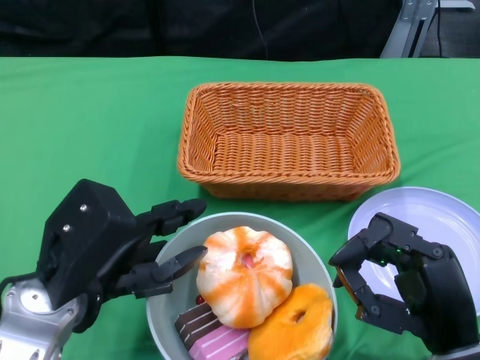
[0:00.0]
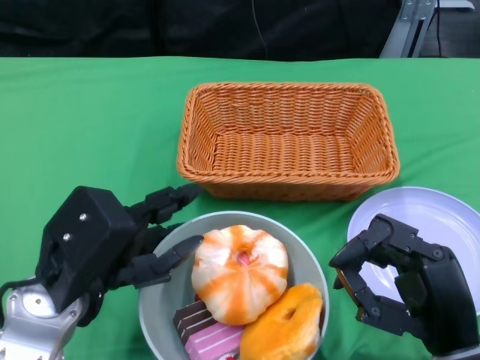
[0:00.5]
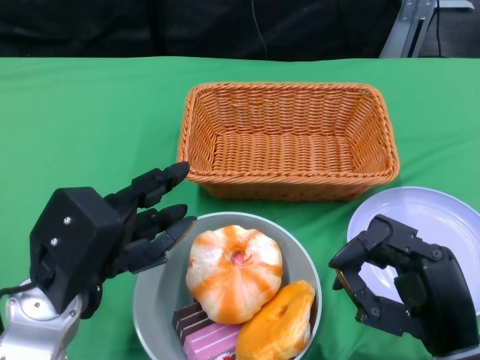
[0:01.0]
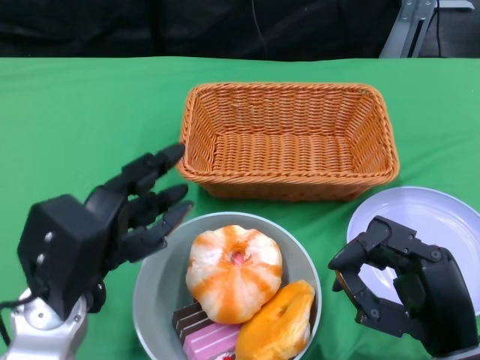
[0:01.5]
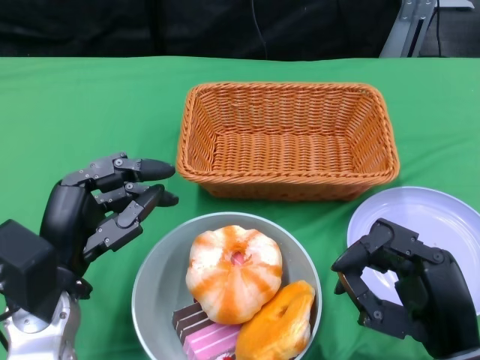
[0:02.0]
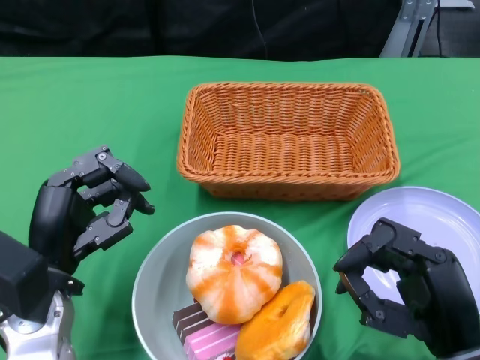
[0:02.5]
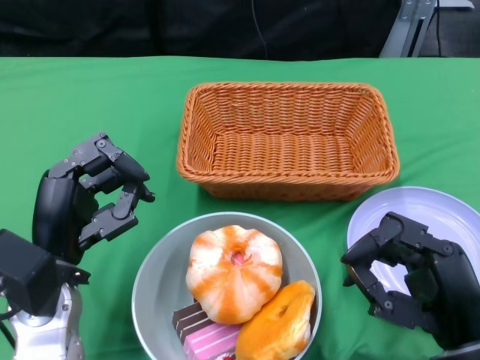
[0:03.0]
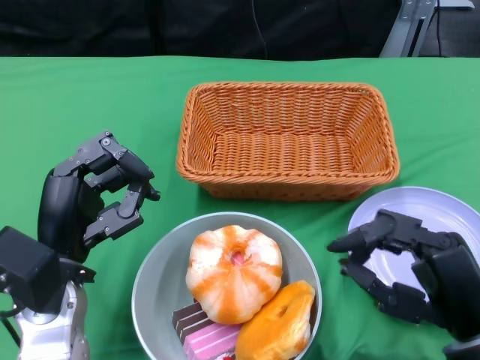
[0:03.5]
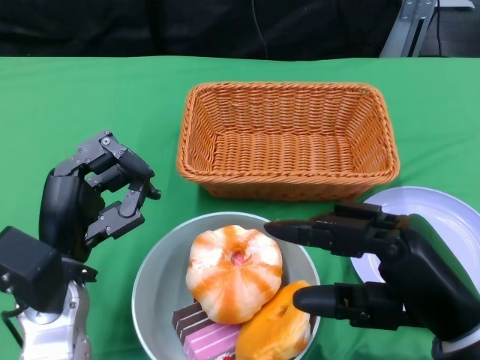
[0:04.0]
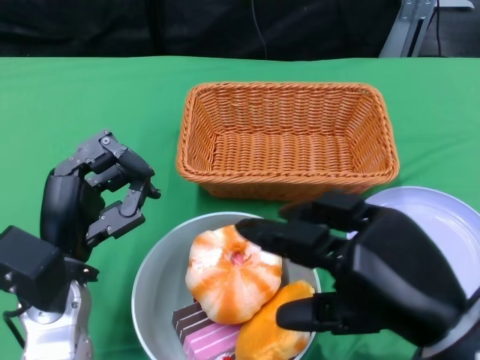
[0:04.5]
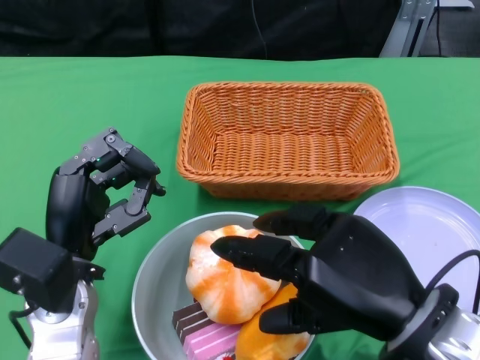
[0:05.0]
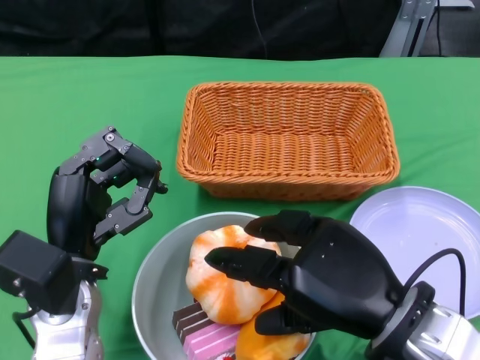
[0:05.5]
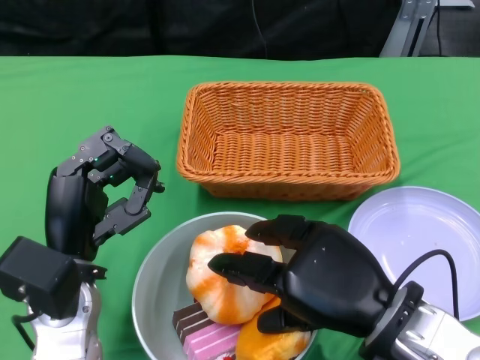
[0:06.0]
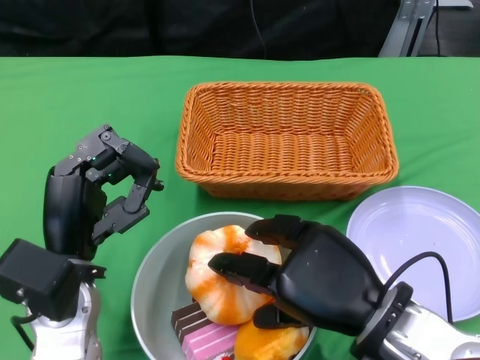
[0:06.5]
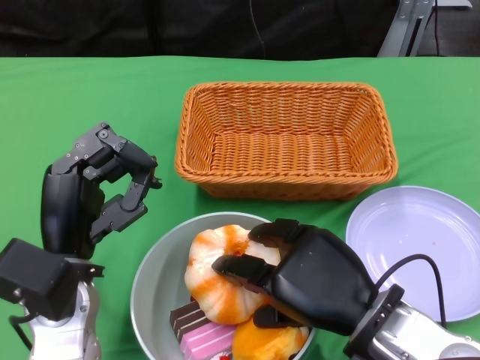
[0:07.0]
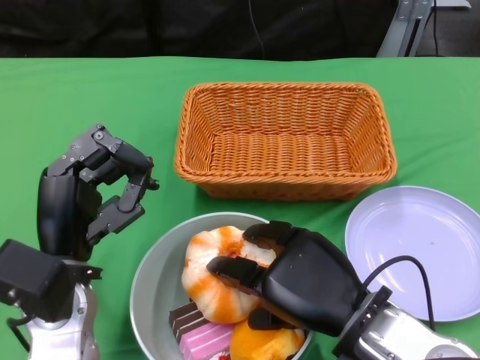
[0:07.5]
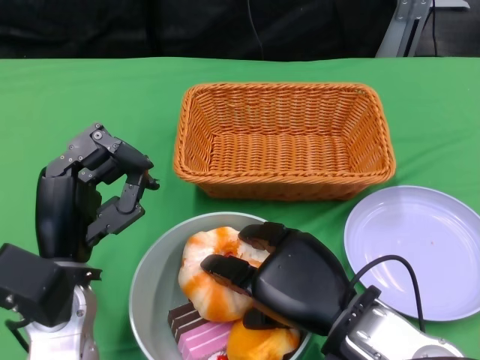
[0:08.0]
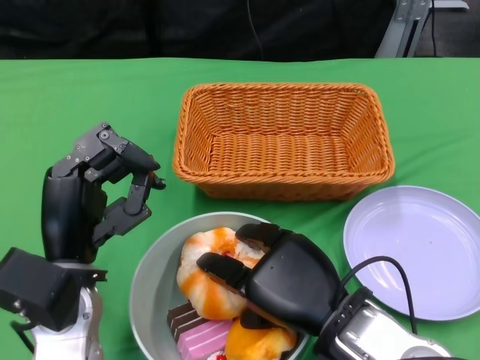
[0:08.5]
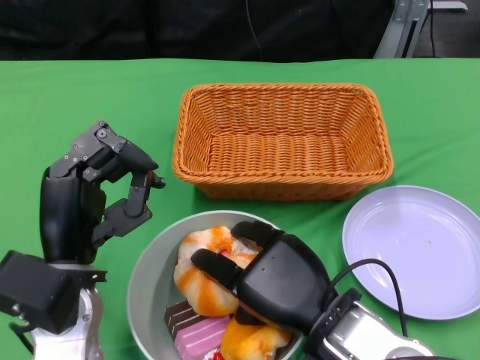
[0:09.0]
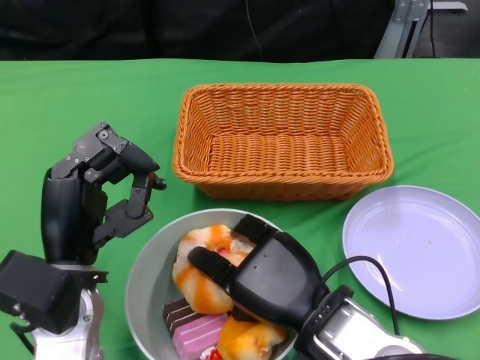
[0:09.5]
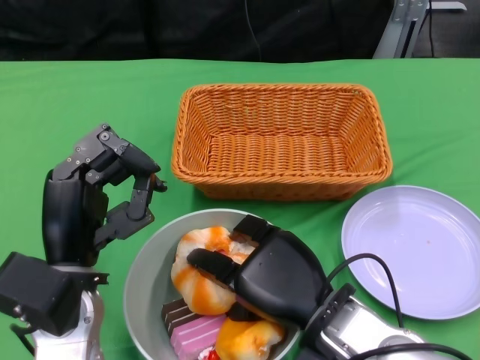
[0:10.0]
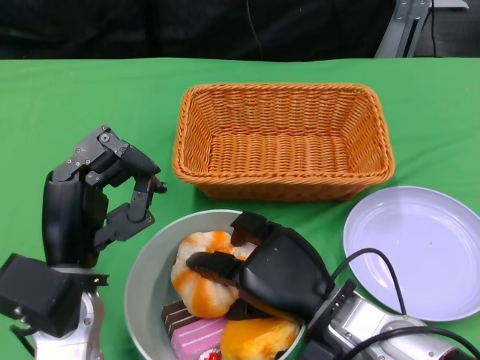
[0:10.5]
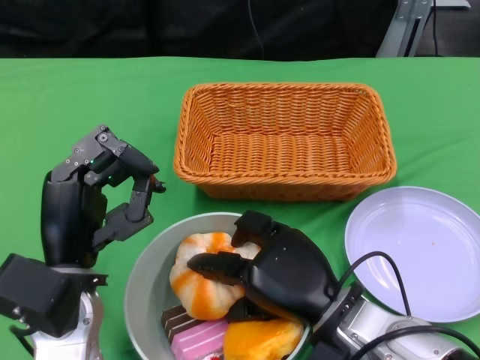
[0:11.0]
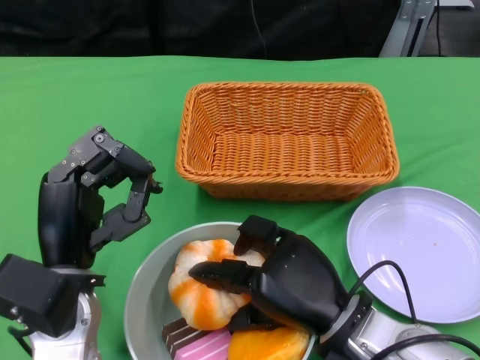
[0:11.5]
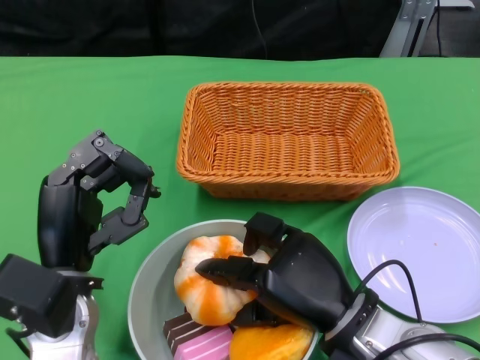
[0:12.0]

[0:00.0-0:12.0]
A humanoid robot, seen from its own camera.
Step, 0:00.0 to 0:03.5: Place the bowl in the center of the table with the left gripper.
0:02.0 to 0:04.0: The right hand travels upward by roughly 5 cm.
0:04.0 to 0:06.0: The right hand is displaced to the left by about 5 cm.

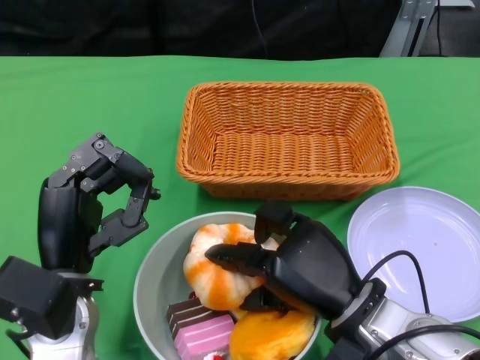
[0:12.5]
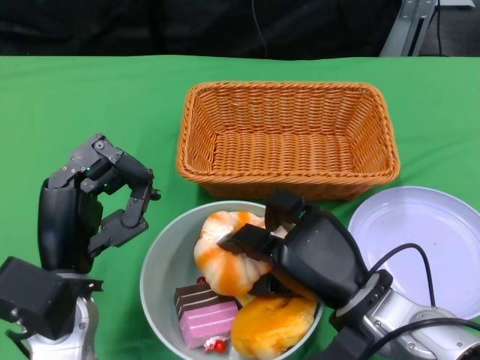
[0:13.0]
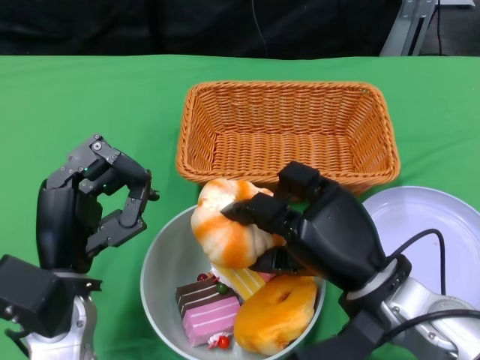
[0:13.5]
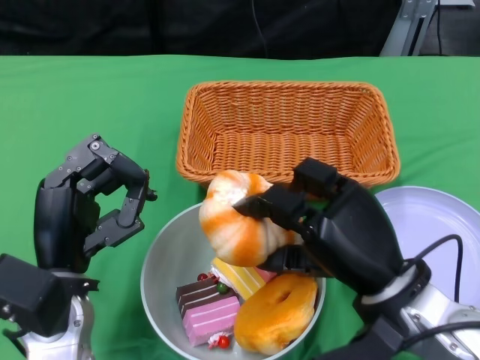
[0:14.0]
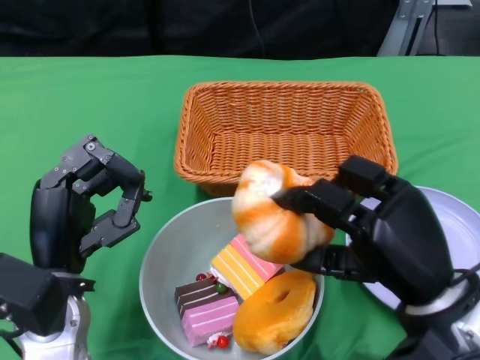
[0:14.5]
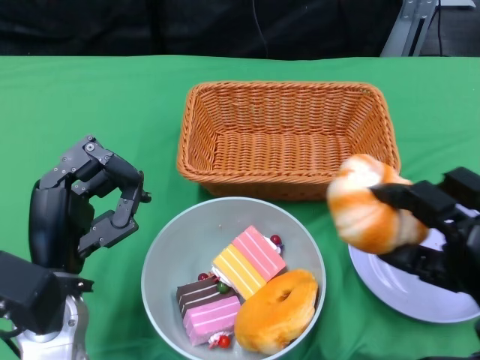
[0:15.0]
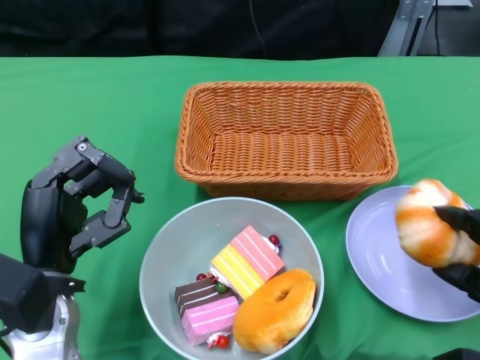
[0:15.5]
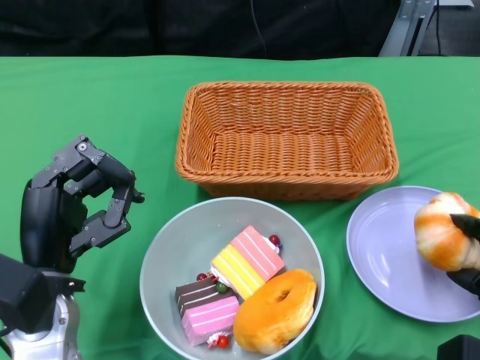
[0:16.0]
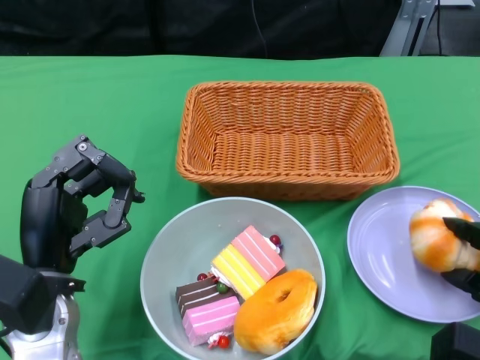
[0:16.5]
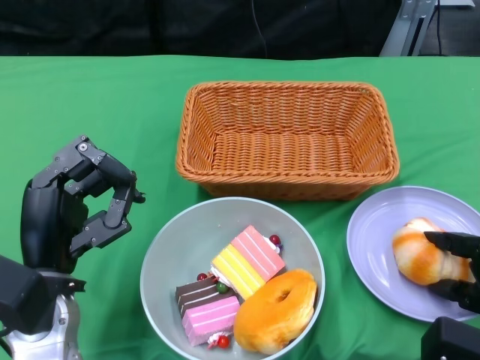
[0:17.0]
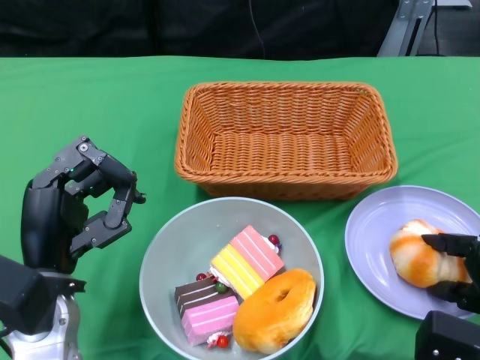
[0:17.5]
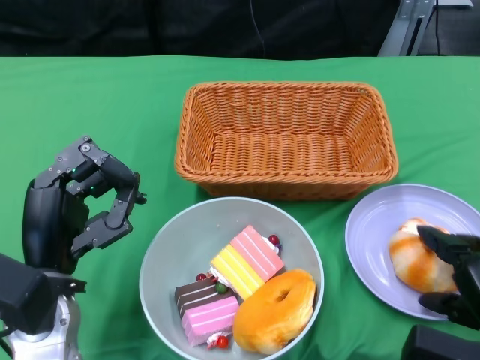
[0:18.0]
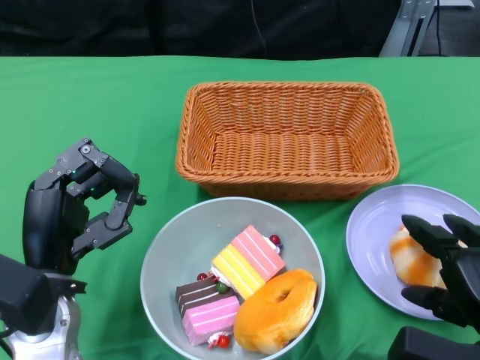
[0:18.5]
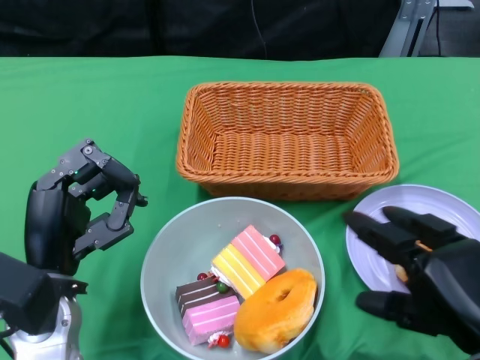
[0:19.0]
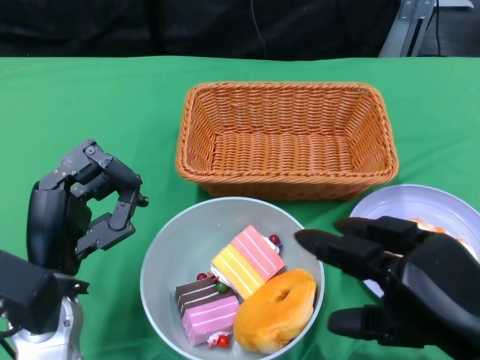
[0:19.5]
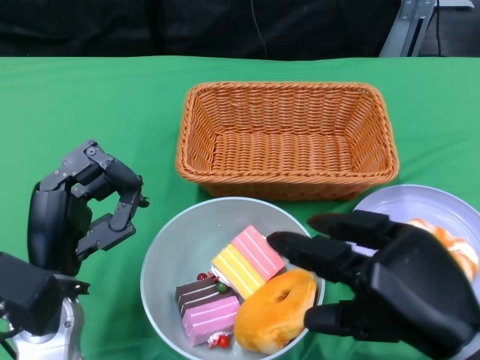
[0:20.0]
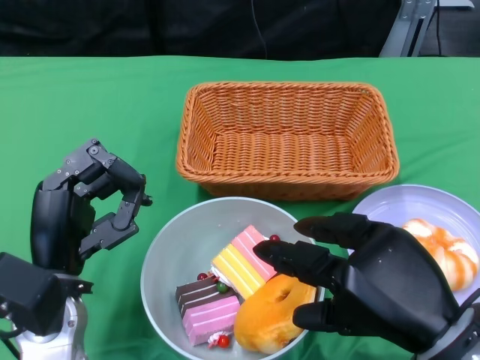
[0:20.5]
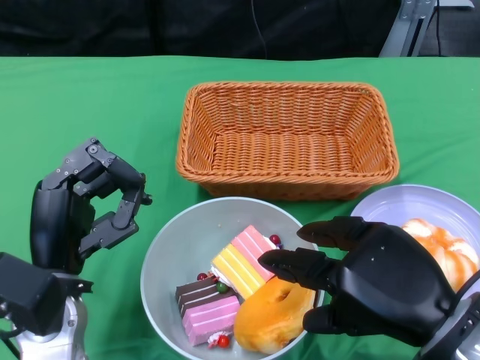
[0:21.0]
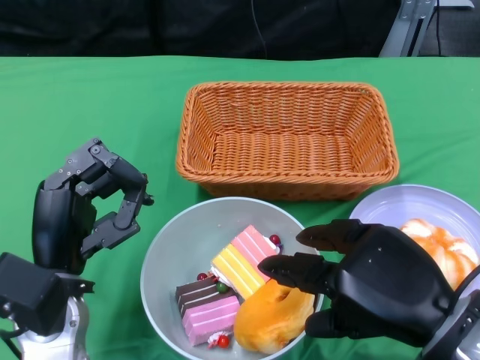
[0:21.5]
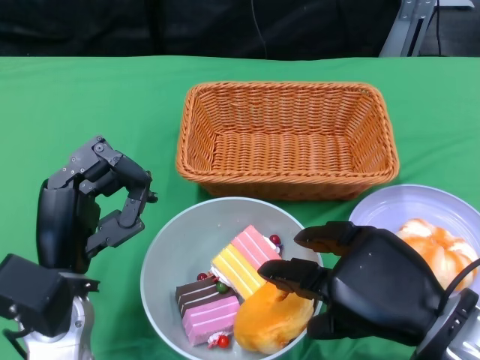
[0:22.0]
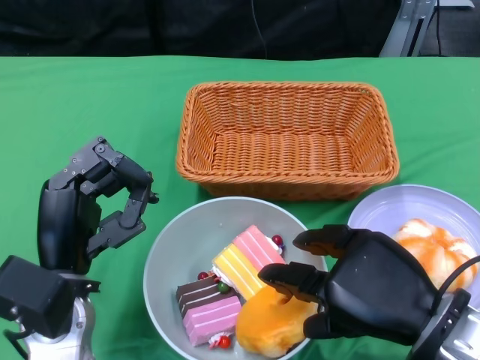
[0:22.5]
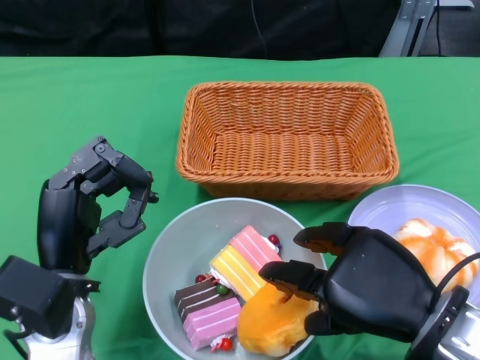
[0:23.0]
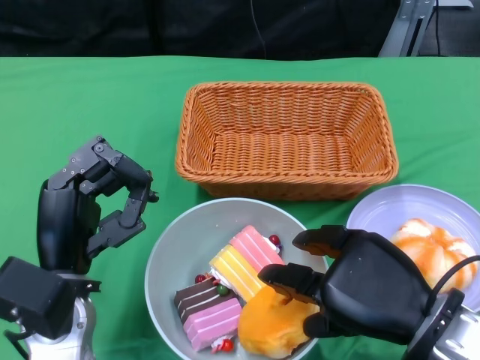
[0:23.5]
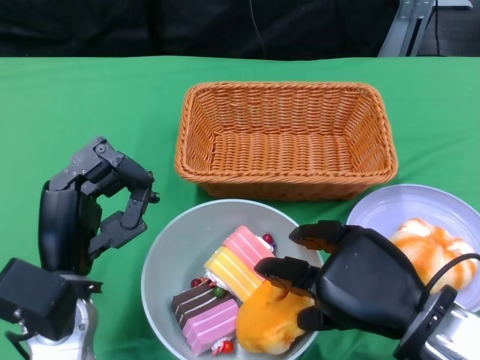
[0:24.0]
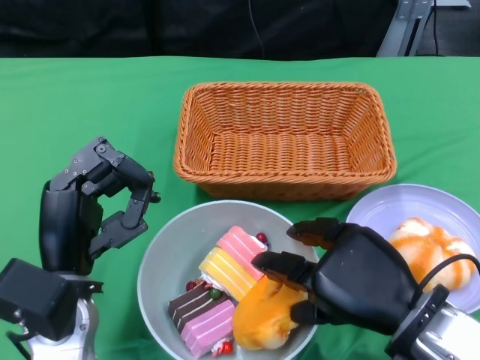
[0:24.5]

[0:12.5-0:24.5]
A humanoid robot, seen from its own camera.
0:12.5 to 0:14.5: The right hand shifts approximately 10 cm to the right and upward.
0:14.5 to 0:16.5: The right hand travels to the right and downward by approximately 15 cm.
0:16.5 to 0:18.5: The right hand moves roughly 5 cm.
0:18.5 to 0:20.5: The right hand shifts some 10 cm upward and to the left.
0:20.5 to 0:24.5: The hands stay close to where they were, moving slightly.

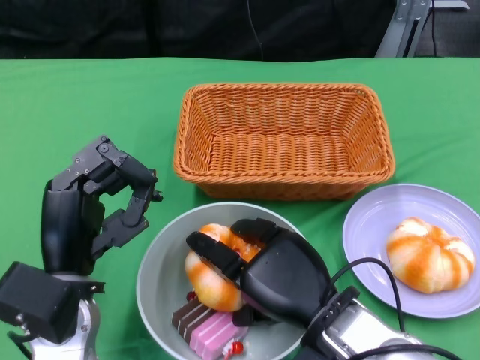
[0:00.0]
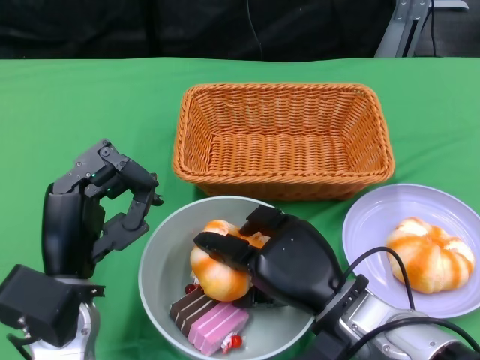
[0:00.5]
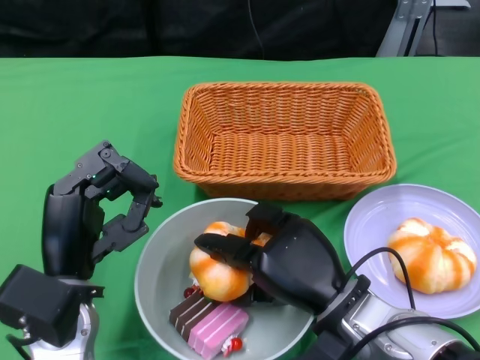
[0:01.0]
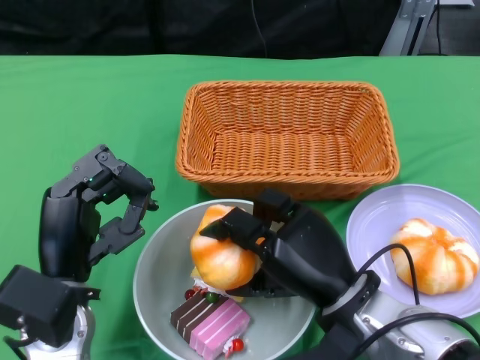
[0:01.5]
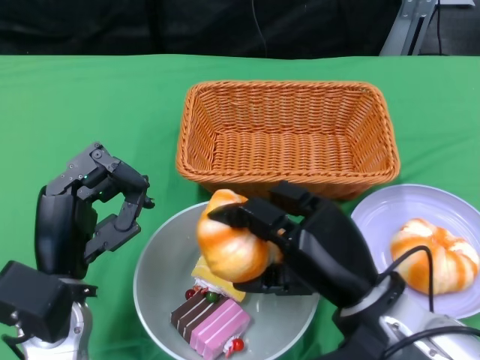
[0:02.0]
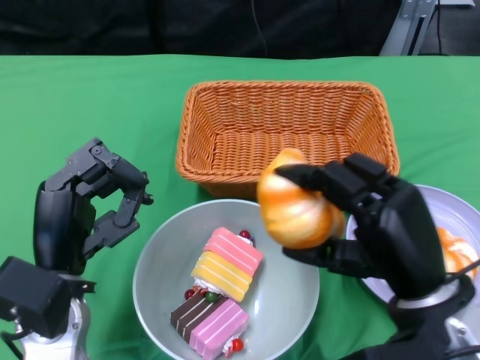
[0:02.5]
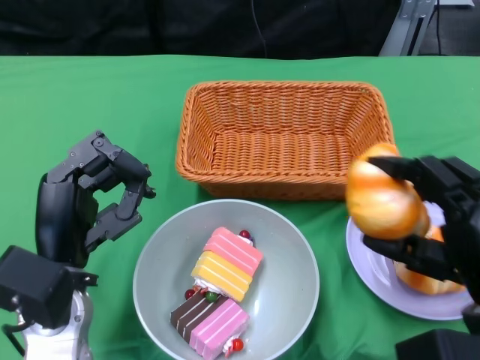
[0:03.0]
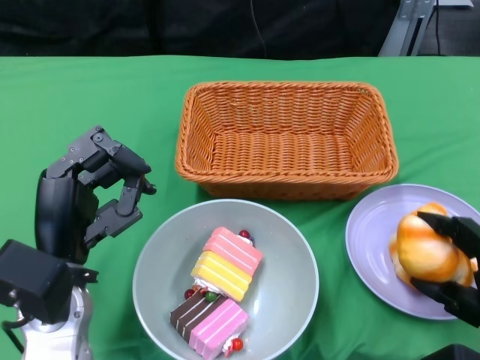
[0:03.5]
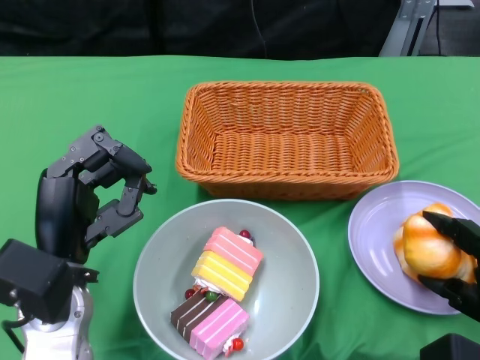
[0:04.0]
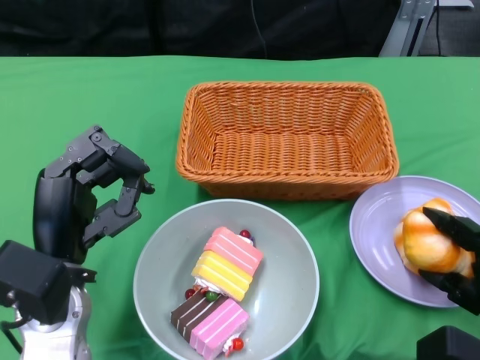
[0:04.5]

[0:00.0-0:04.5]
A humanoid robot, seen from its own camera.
0:02.0 to 0:04.5: The right hand goes about 15 cm to the right.
